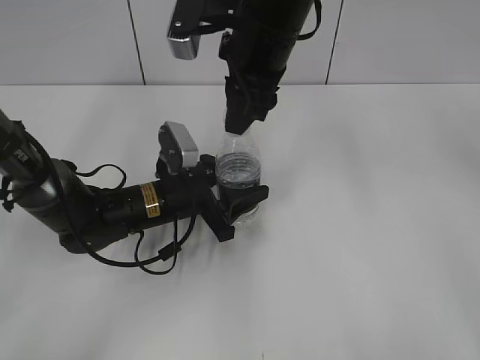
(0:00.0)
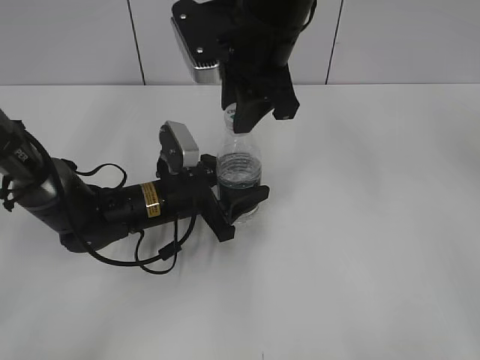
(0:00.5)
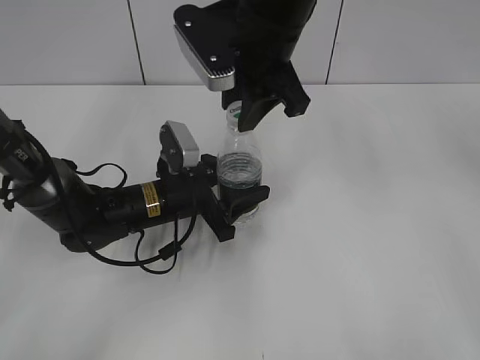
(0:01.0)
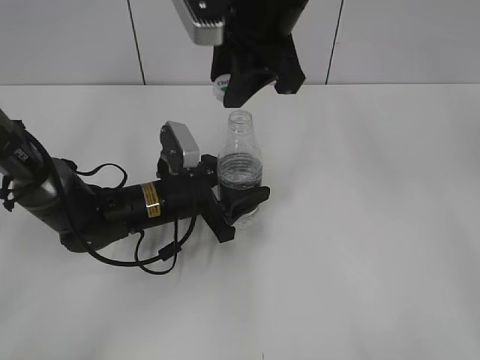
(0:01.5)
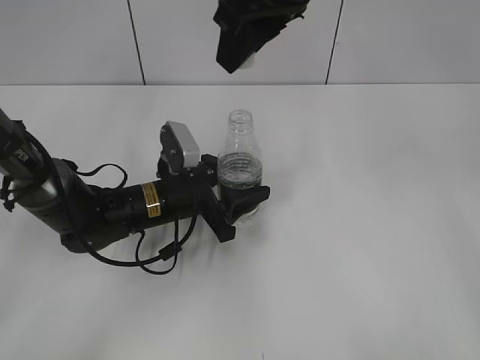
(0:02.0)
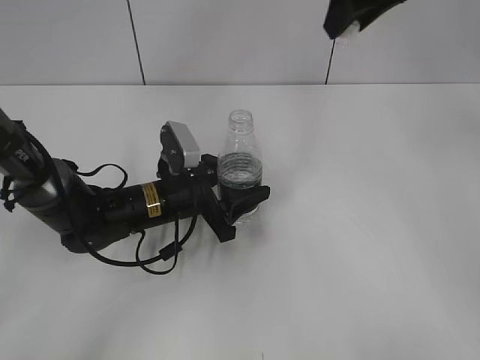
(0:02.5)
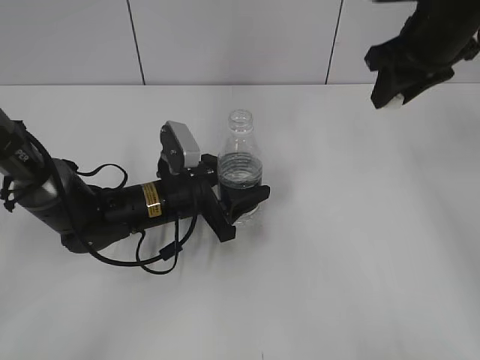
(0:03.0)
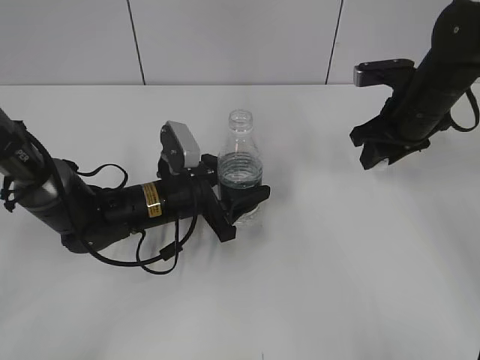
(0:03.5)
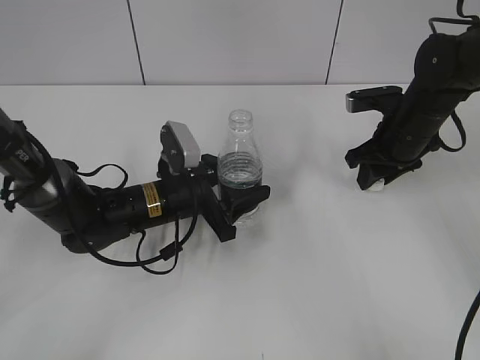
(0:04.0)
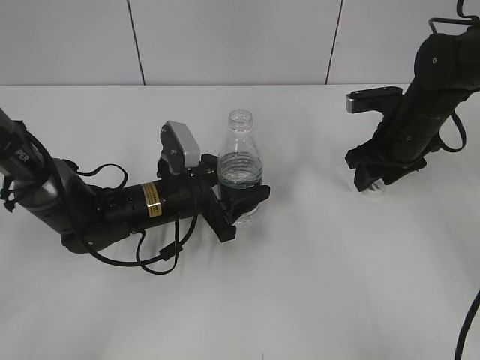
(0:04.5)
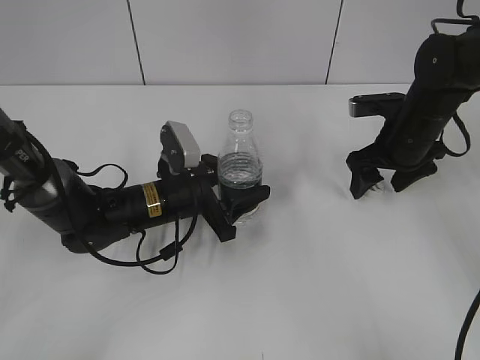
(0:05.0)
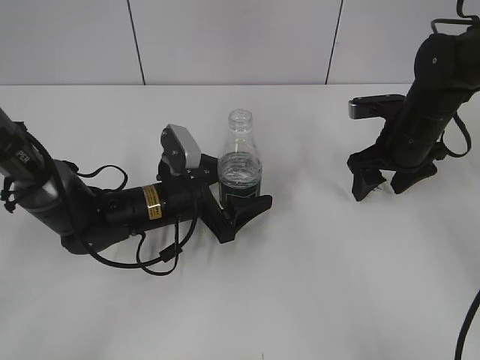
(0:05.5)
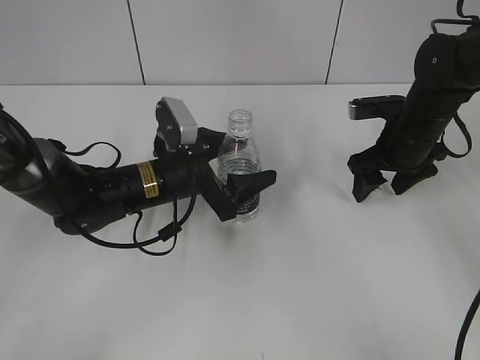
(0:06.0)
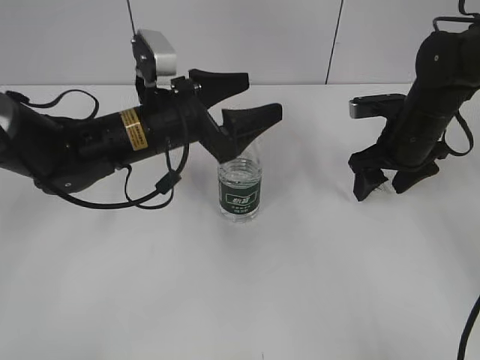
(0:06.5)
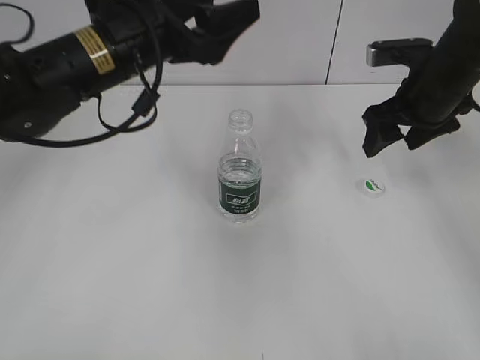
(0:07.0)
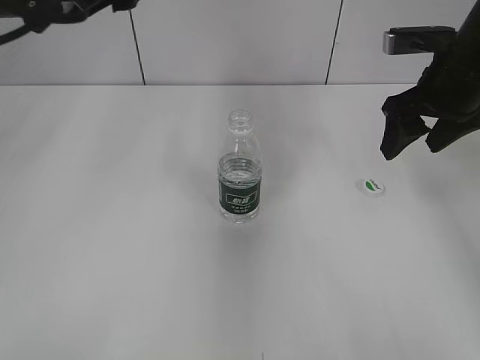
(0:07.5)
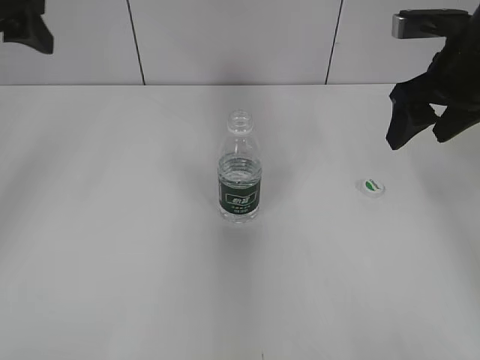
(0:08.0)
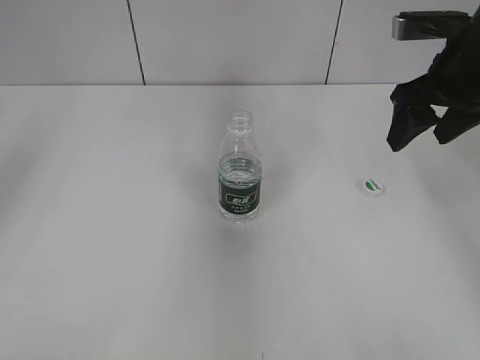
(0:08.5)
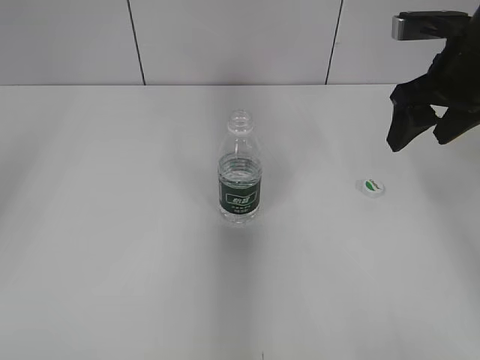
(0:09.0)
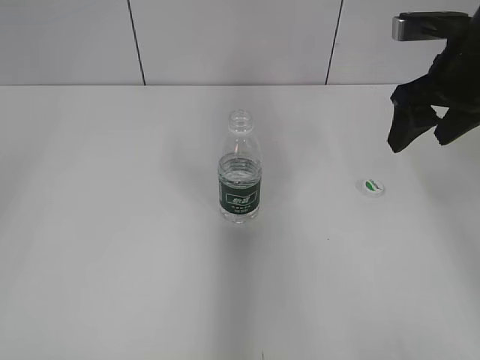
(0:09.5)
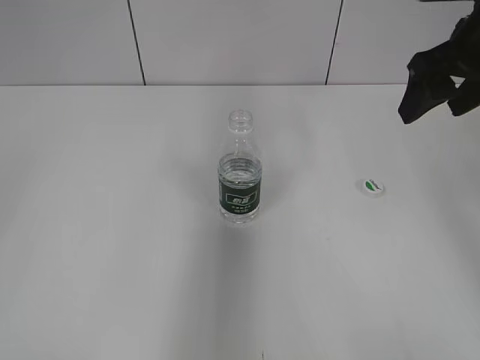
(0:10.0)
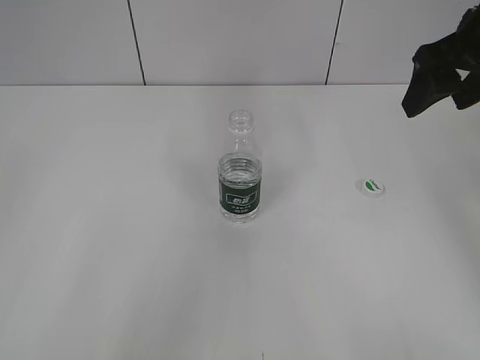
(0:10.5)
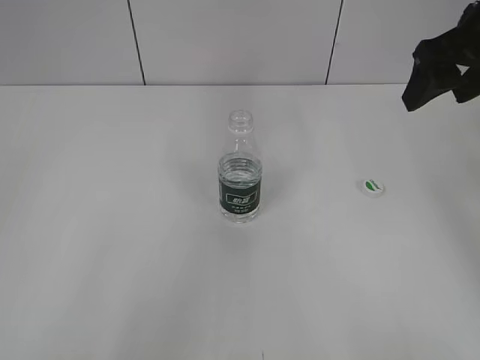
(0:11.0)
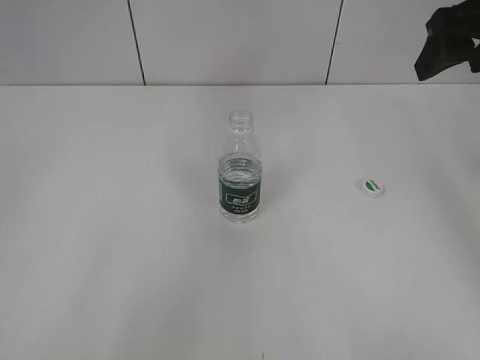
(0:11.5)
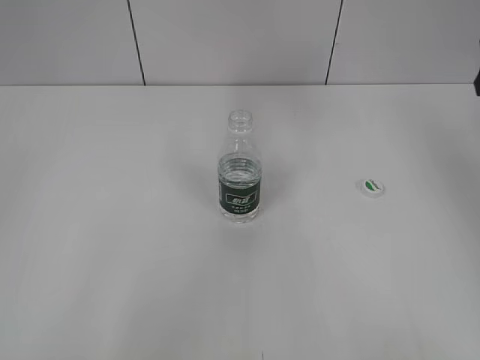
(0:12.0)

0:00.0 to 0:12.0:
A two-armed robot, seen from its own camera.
Step, 0:02.0 to 0:05.0: Place the bottle cap on the table with the right gripper.
Step, 0:05.5 to 0:06.0: Place the bottle on the table with the left gripper.
0:00.0 to 0:02.0: The right gripper heads upward, covering some 10 cm.
0:02.0 to 0:04.0: The right gripper heads downward and to the right, covering some 30 cm.
0:04.0 to 0:06.0: The right gripper opens, while the left gripper opens its fingers.
0:06.0 to 0:08.0: The left gripper is displaced upward and to the left by about 30 cm. The right gripper is displaced upward by about 15 cm.
0:08.0 to 0:10.0: The left gripper shifts approximately 30 cm backward.
0:10.0 to 0:12.0: The right gripper heads to the right, covering approximately 5 cm. Meanwhile the left gripper heads downward, covering some 10 cm, and closes up.

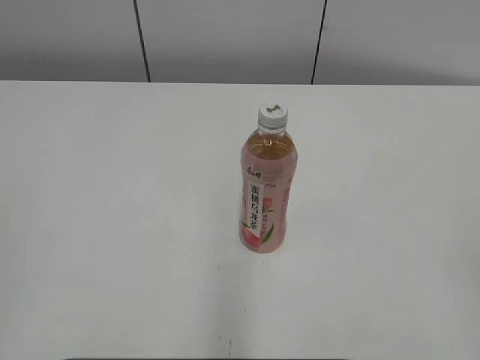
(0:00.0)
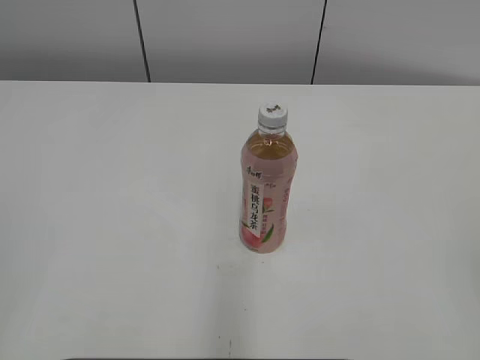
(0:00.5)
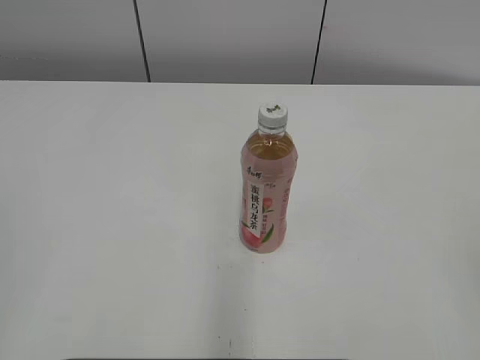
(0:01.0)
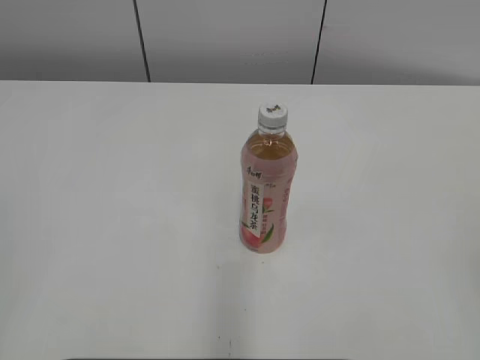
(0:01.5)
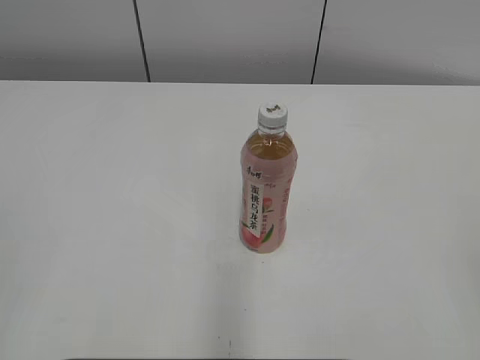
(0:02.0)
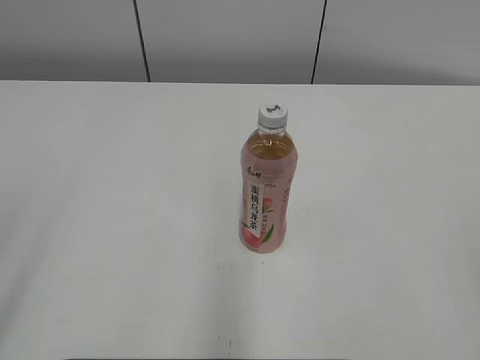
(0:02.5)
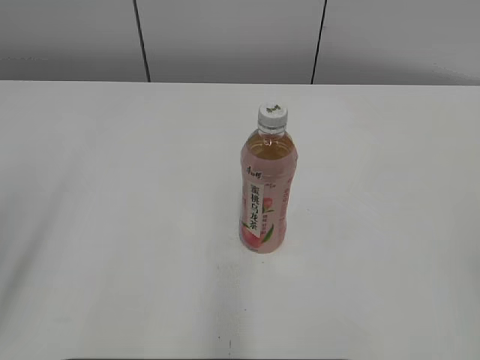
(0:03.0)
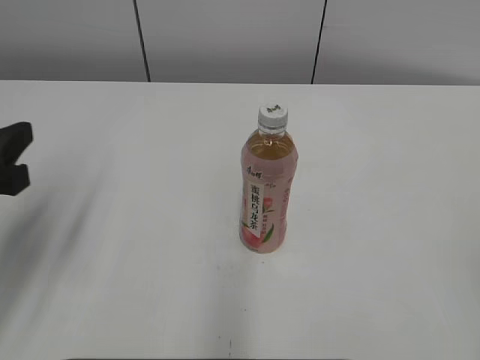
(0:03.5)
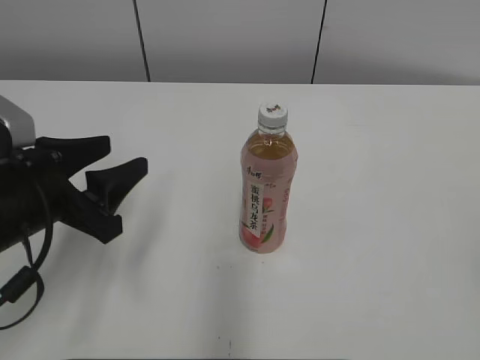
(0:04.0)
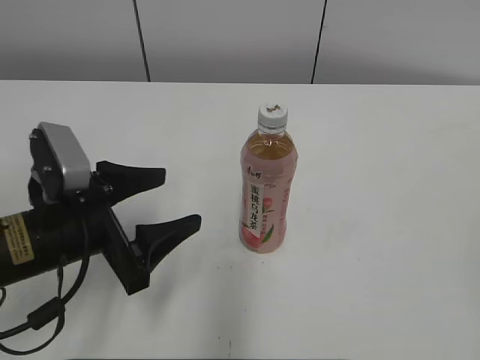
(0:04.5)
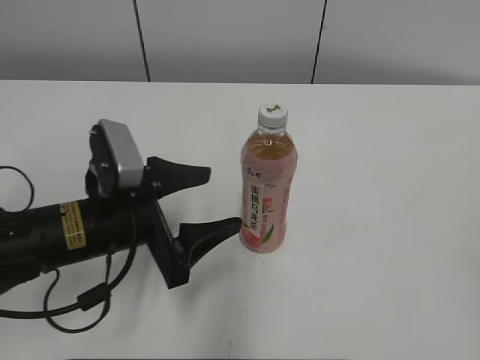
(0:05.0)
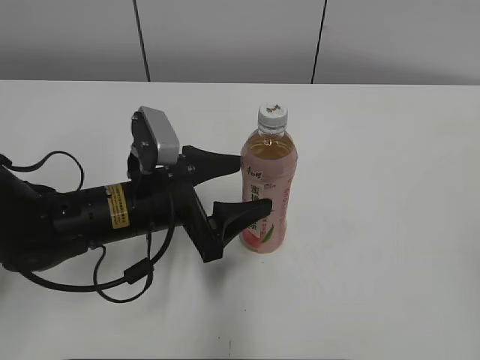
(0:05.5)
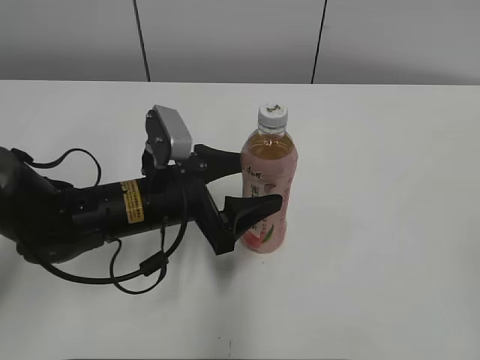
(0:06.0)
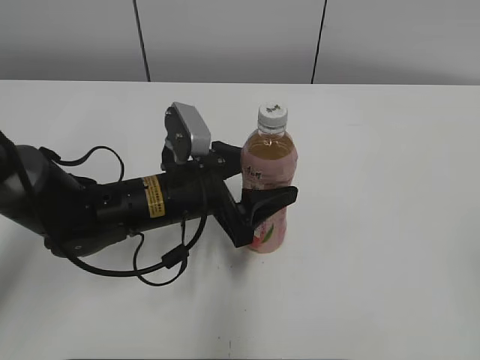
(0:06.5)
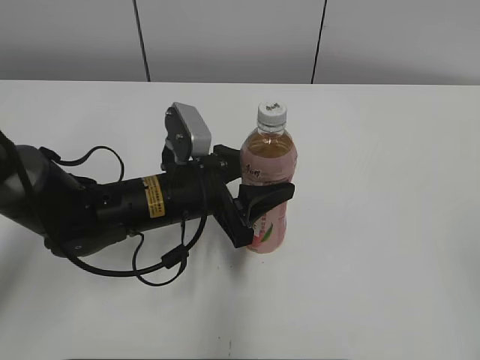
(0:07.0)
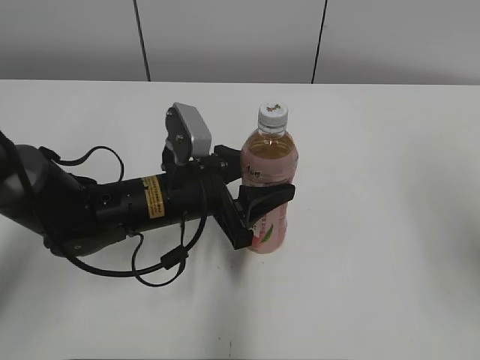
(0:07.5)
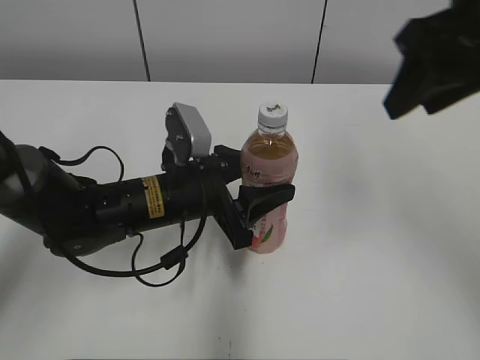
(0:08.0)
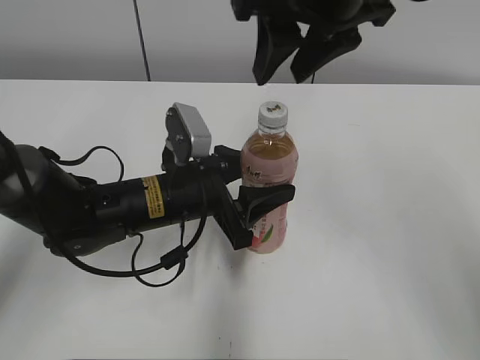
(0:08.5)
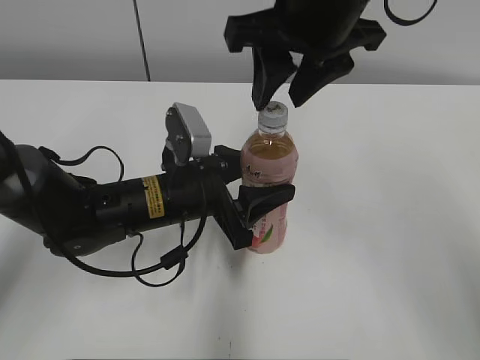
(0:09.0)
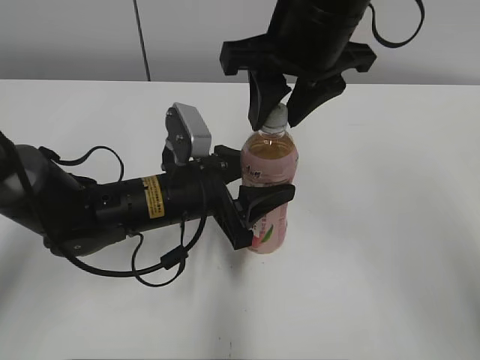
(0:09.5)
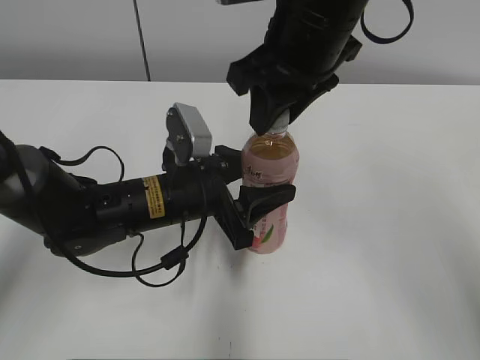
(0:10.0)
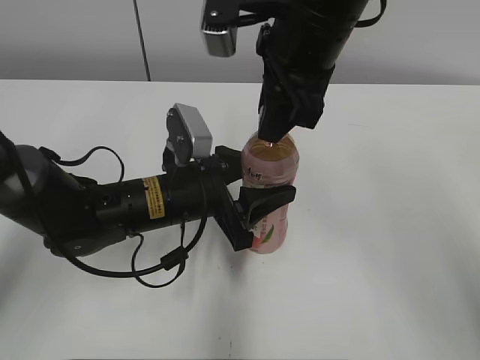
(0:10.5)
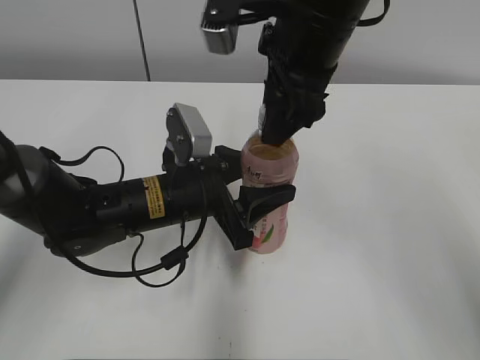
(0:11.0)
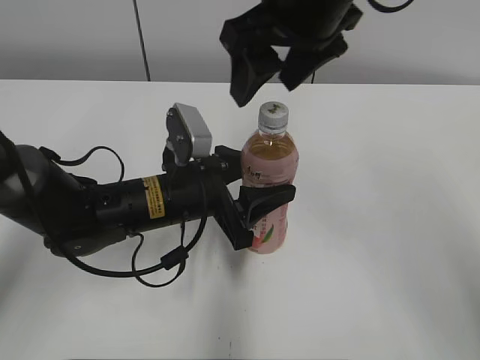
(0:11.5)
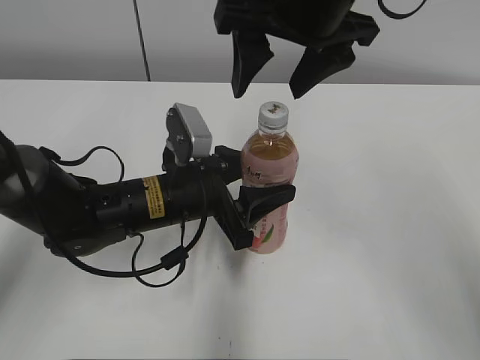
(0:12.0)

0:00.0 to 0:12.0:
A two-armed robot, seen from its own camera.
Step, 0:00.0 to 0:06.5: Grab the Peach Oolong Tea with the left hand.
0:02.0 to 0:04.0: The left gripper goes roughly 30 cm forward, downward and to the right, and opens.
0:04.0 to 0:06.0: The left gripper travels to the right, forward and downward by roughly 15 cm, and opens its fingers.
0:06.0 to 0:08.0: The right gripper shifts approximately 30 cm forward and to the left; the left gripper closes.
0:08.0 to 0:10.0: The right gripper moves to the left, about 15 cm.
0:10.0 to 0:12.0: The right gripper opens up.

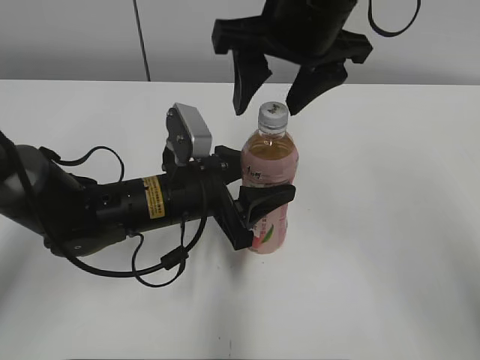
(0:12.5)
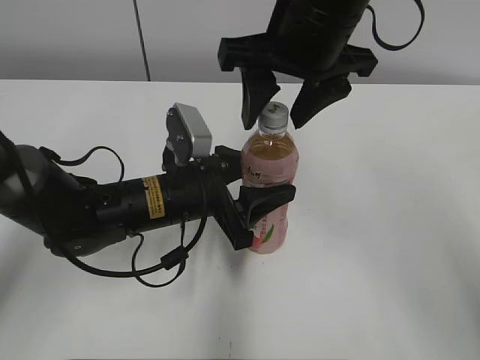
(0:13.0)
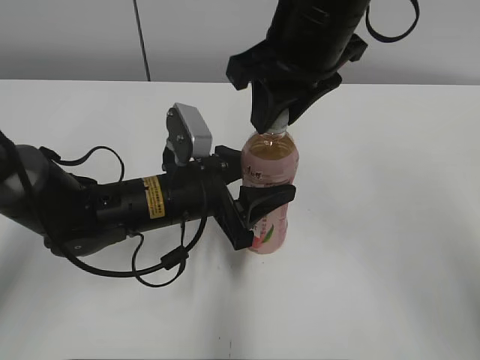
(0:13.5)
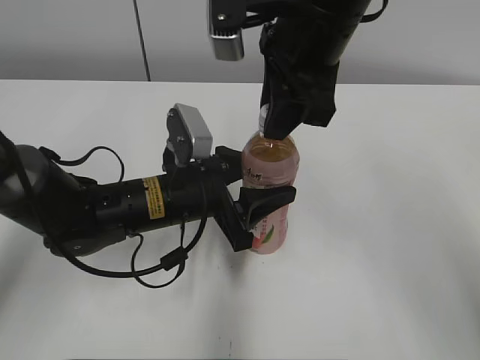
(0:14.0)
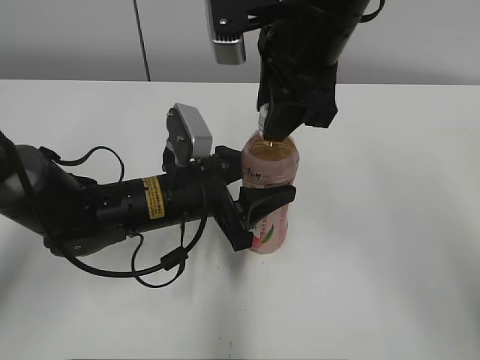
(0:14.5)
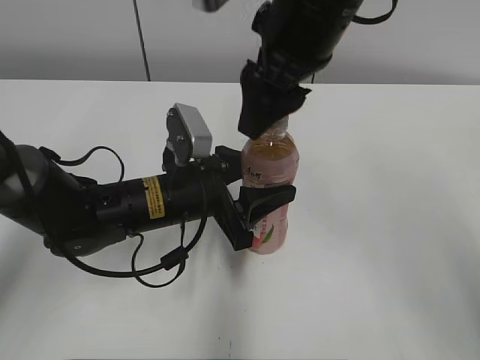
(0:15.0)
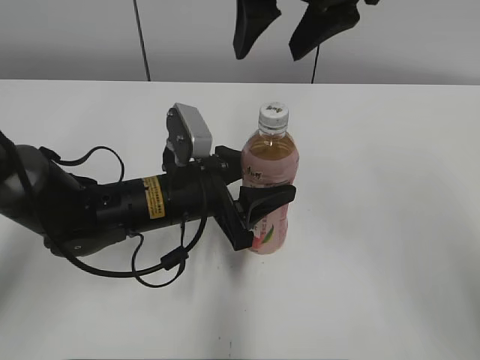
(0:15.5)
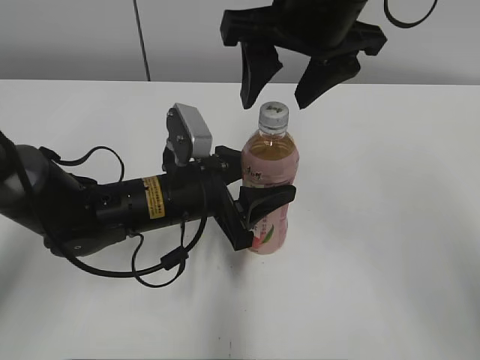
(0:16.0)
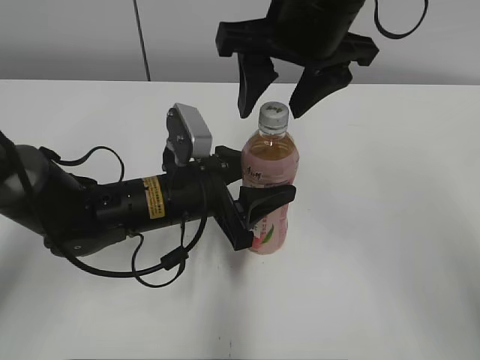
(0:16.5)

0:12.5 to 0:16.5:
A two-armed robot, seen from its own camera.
0:12.5 to 0:14.5: The right gripper closes.
0:14.5 to 0:16.5: The right gripper opens its fingers.
